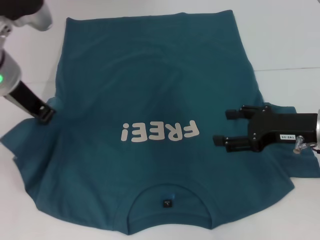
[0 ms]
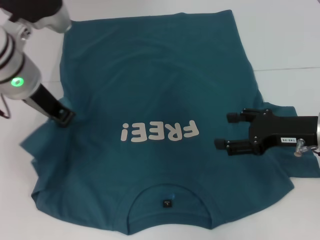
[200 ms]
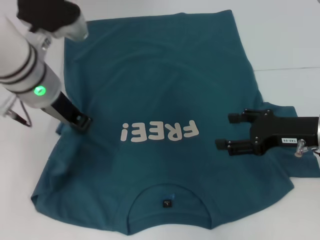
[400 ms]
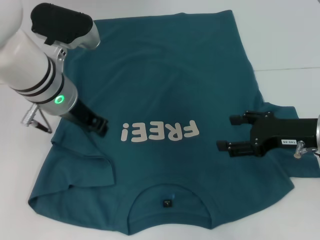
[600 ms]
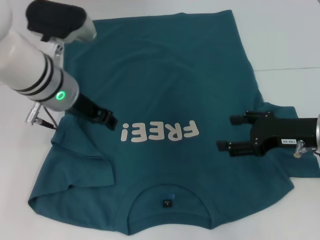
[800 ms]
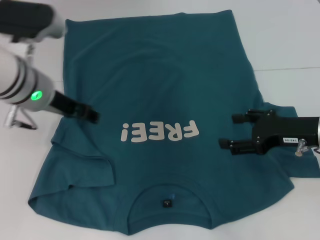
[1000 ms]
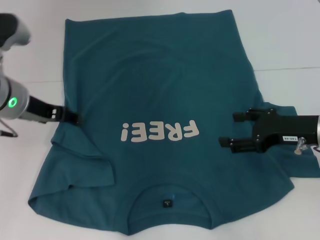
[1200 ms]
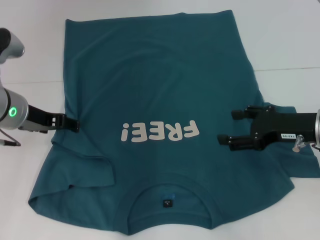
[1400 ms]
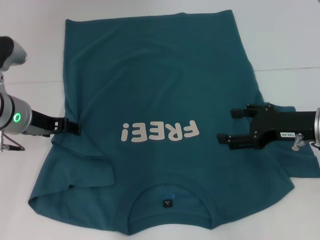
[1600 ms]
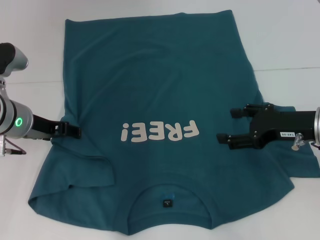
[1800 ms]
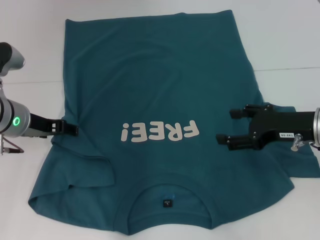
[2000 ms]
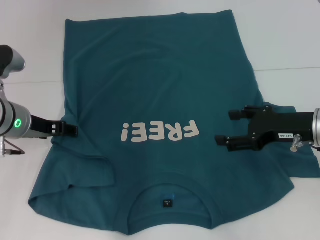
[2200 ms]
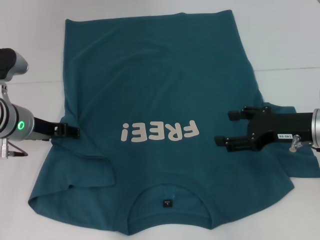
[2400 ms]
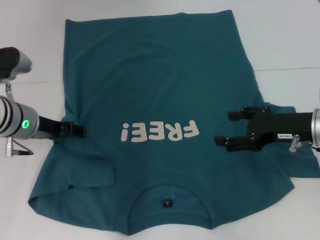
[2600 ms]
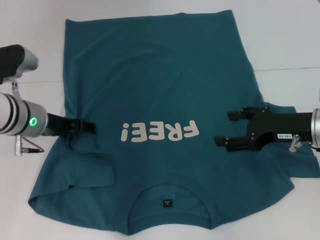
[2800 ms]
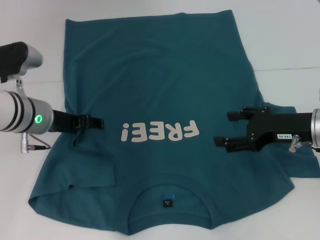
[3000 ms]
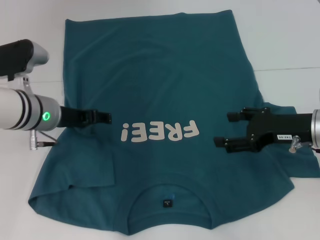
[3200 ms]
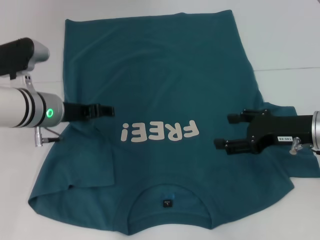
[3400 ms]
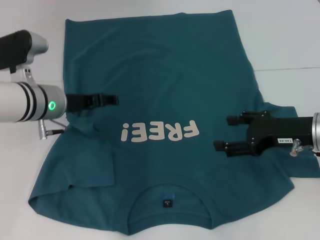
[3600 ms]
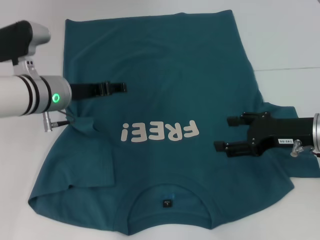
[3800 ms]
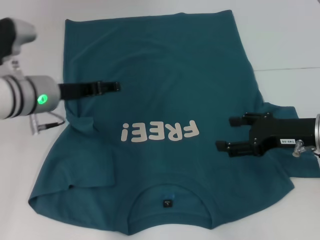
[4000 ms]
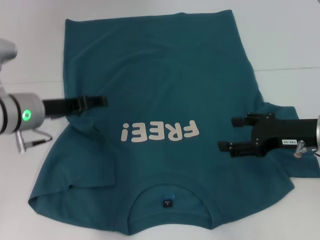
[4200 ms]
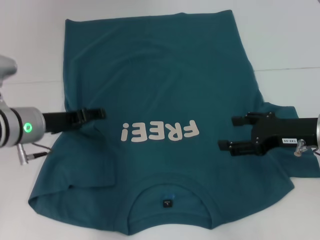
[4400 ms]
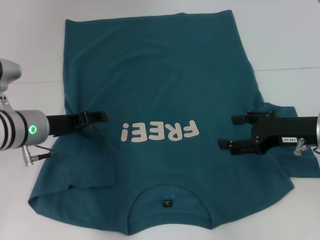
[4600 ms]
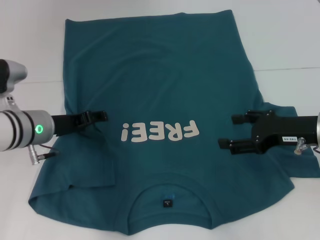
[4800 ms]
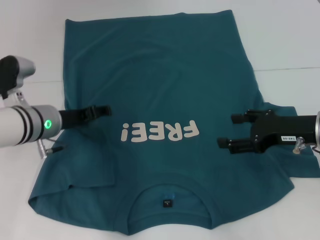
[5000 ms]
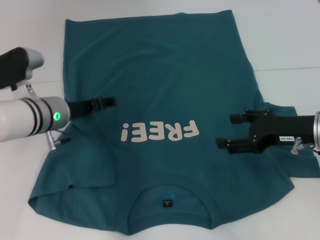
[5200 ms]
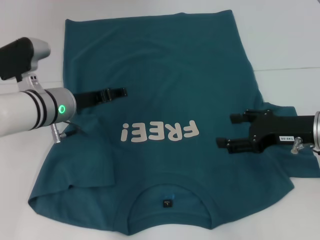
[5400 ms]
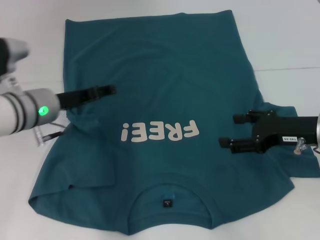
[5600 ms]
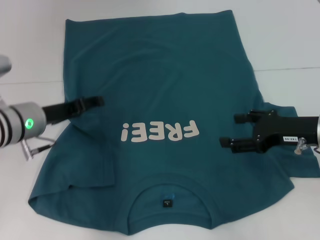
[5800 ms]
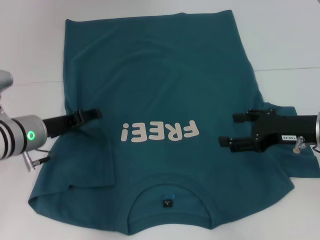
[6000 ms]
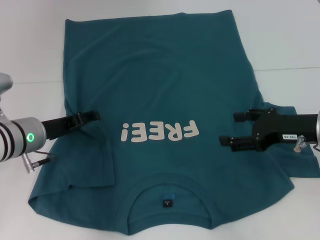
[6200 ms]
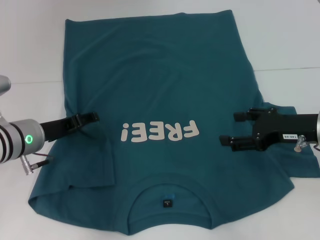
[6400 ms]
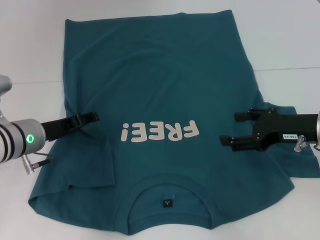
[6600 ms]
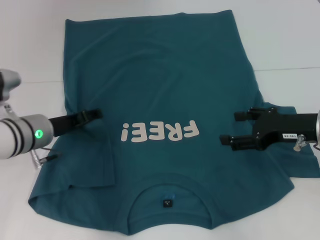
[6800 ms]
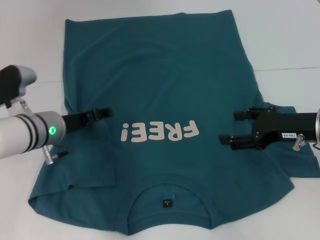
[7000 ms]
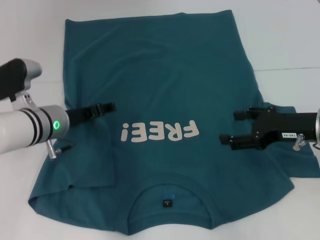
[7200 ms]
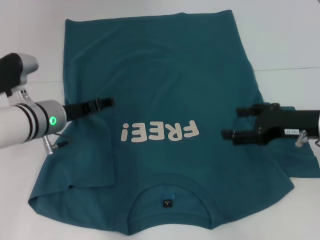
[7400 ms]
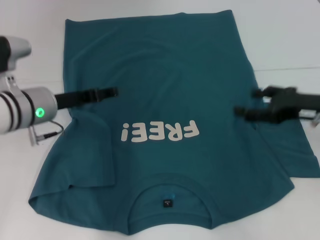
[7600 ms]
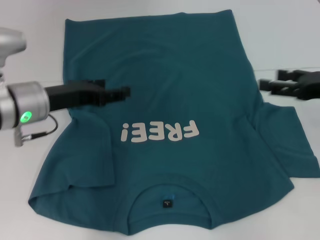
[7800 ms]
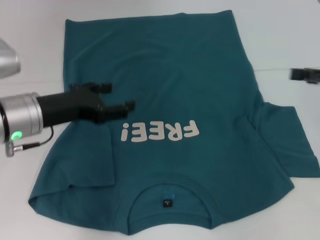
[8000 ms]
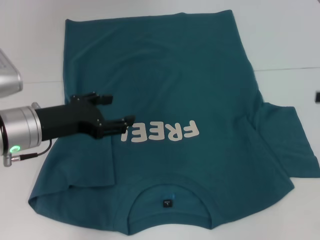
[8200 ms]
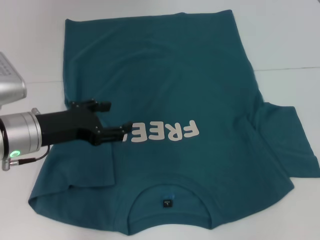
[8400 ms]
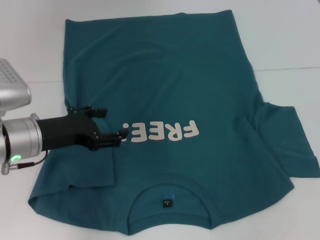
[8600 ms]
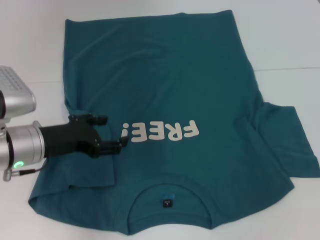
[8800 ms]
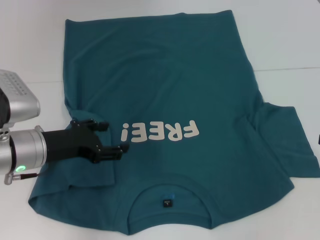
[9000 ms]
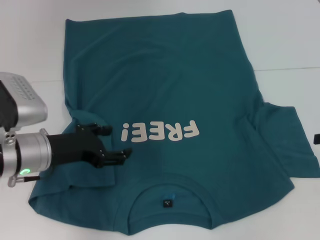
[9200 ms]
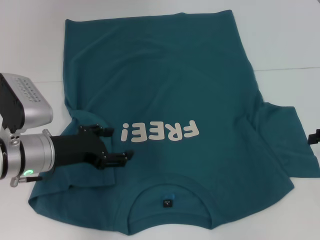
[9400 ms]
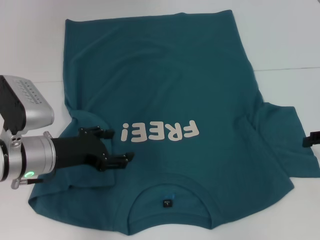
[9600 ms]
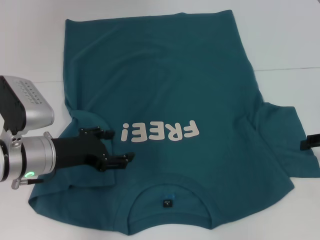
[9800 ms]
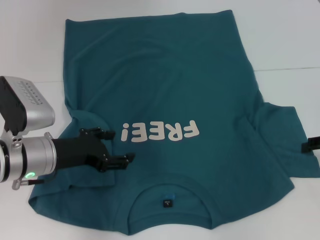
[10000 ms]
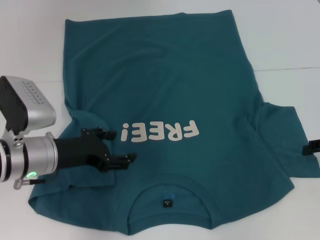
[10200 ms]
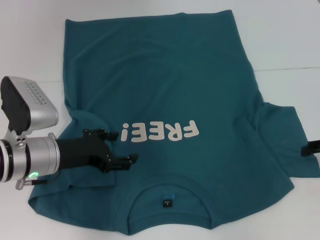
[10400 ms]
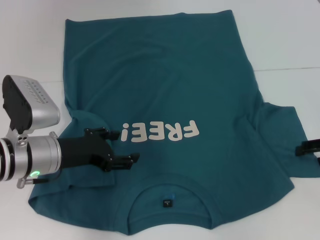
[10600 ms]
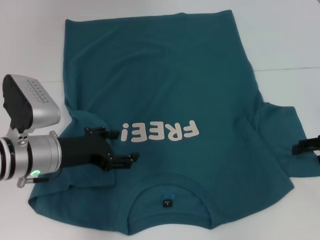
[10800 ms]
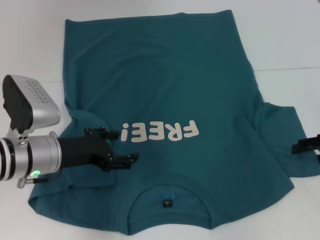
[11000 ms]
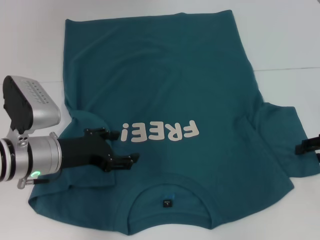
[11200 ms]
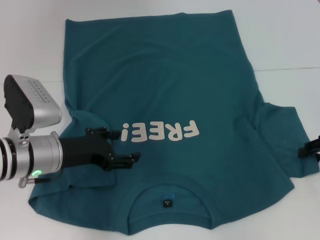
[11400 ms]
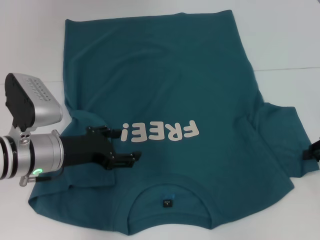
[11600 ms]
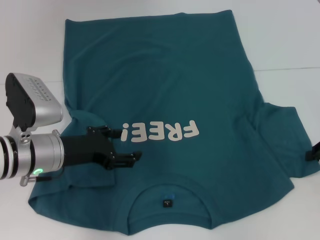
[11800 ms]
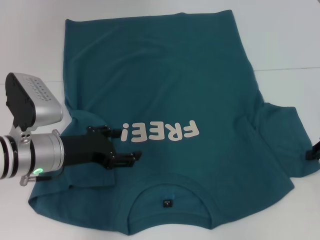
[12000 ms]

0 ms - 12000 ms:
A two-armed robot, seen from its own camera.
Step, 0 ms - 4000 ms: Fold the bottom left sleeve with your left hand.
0 ms - 1600 ms: The left gripper moves downward, approximately 10 cm, and opens up.
1600 ms - 3000 ms: There are only small adjustments of the grippers.
3000 ms - 4400 ms: The grippers make only small movements.
4400 ms - 7600 ms: The grippers make only small movements.
7600 ms - 9000 ms: The left gripper moves backward, about 5 cm. Meanwhile the right gripper travels to the right by approximately 10 cm.
9000 ms - 10400 ms: The grippers stay close to where they were, moving slightly.
10400 ms - 12000 ms: The right gripper closes.

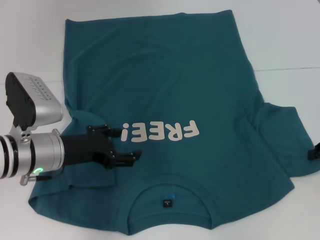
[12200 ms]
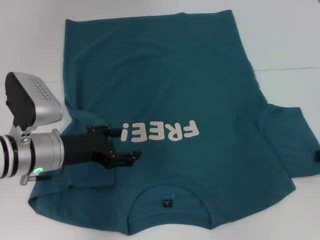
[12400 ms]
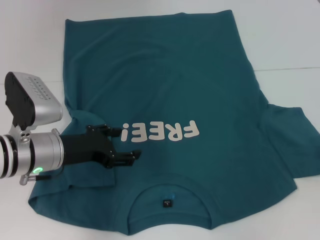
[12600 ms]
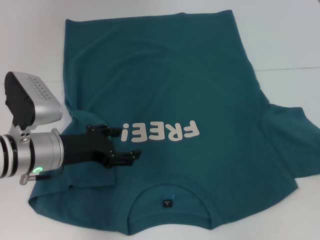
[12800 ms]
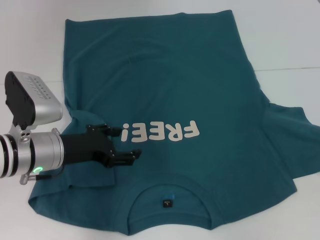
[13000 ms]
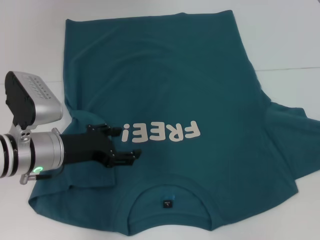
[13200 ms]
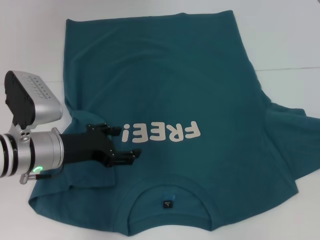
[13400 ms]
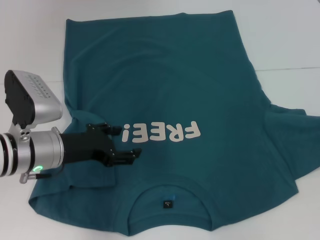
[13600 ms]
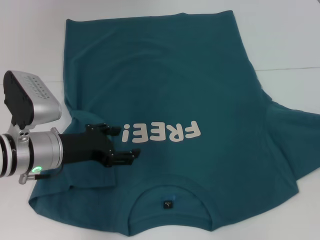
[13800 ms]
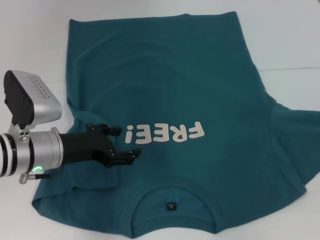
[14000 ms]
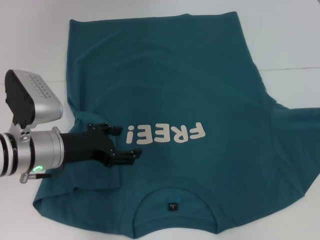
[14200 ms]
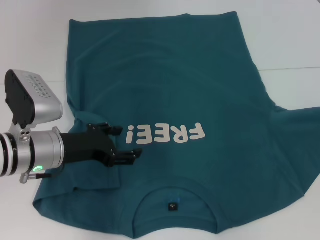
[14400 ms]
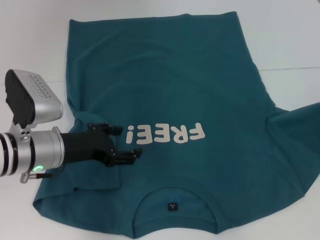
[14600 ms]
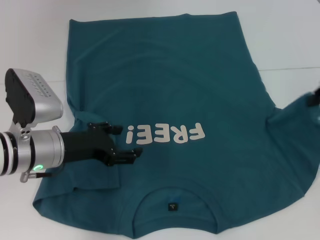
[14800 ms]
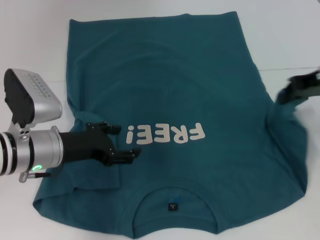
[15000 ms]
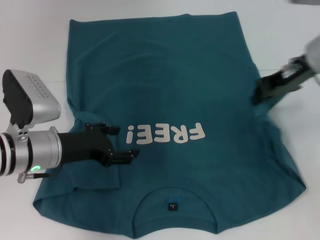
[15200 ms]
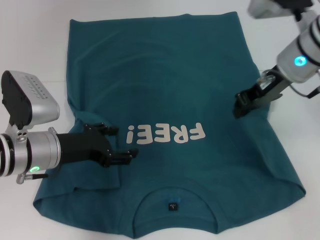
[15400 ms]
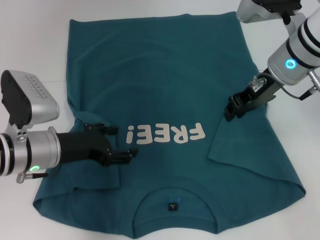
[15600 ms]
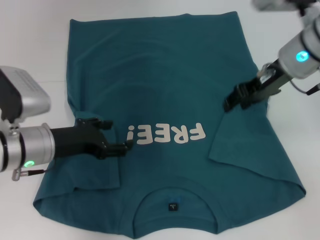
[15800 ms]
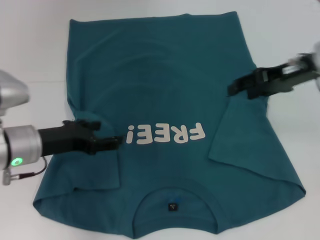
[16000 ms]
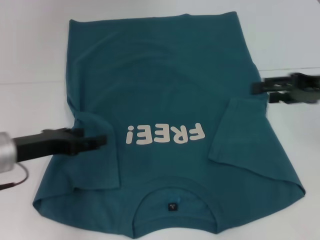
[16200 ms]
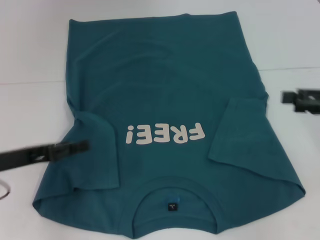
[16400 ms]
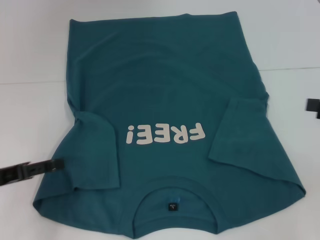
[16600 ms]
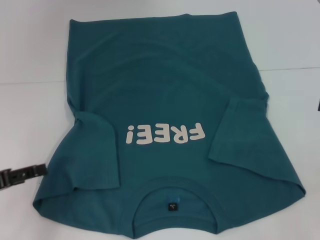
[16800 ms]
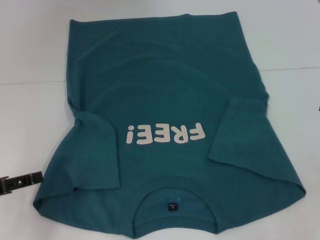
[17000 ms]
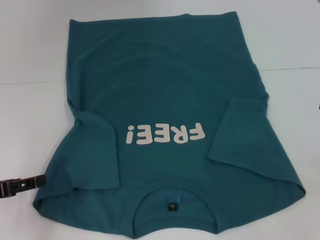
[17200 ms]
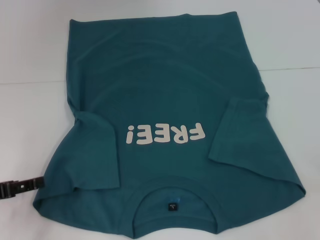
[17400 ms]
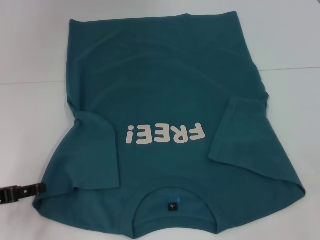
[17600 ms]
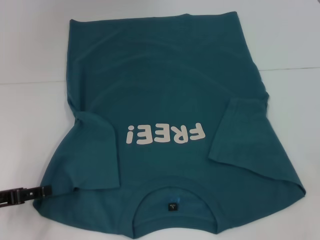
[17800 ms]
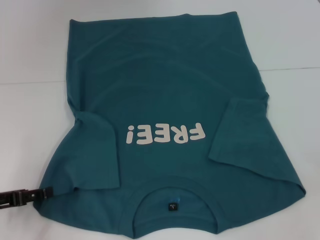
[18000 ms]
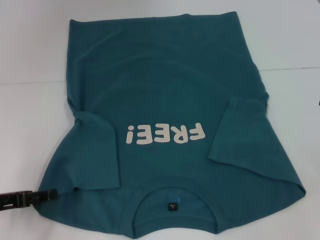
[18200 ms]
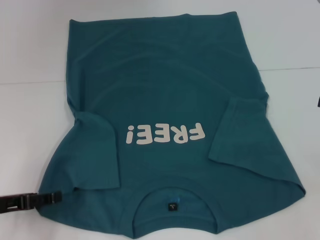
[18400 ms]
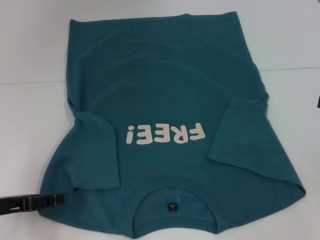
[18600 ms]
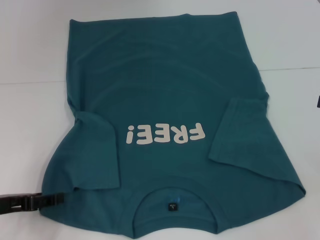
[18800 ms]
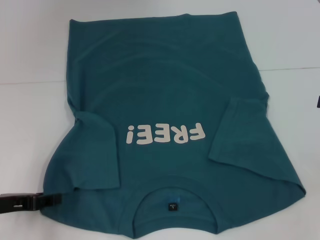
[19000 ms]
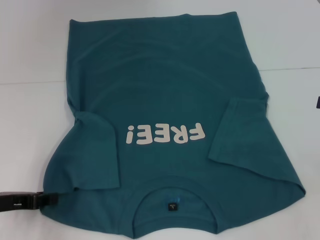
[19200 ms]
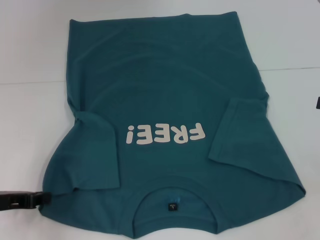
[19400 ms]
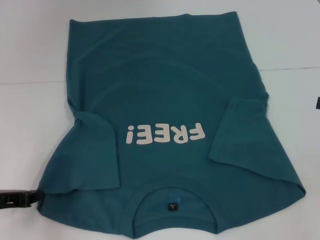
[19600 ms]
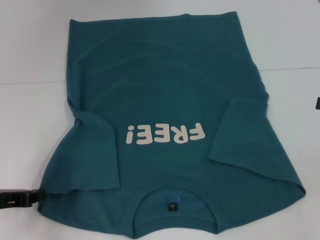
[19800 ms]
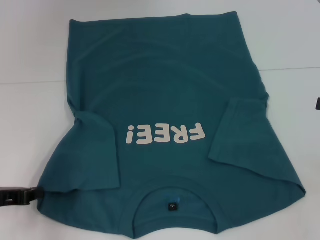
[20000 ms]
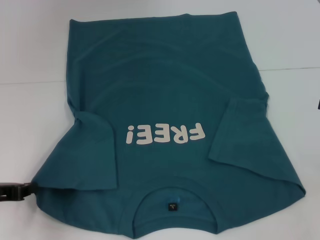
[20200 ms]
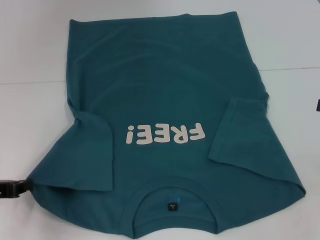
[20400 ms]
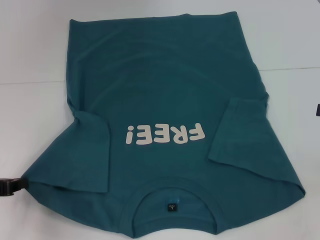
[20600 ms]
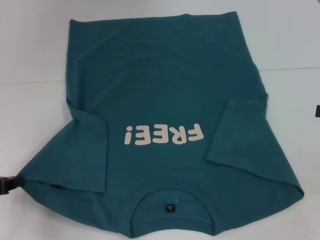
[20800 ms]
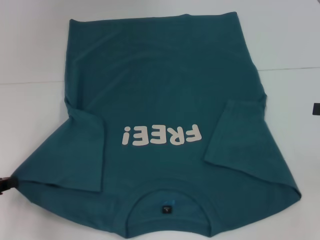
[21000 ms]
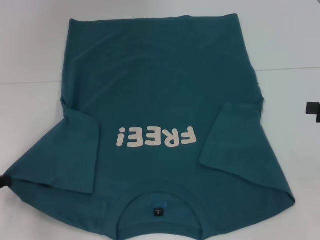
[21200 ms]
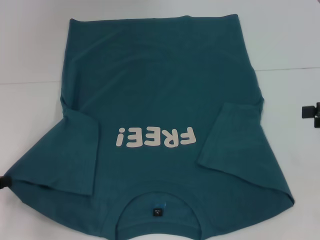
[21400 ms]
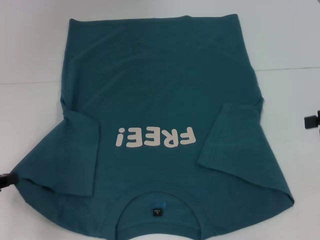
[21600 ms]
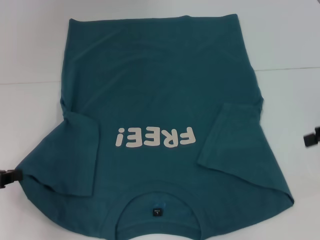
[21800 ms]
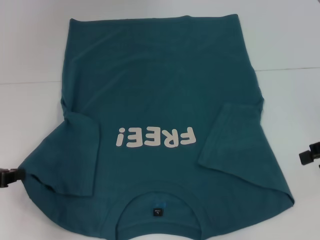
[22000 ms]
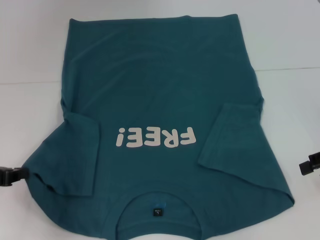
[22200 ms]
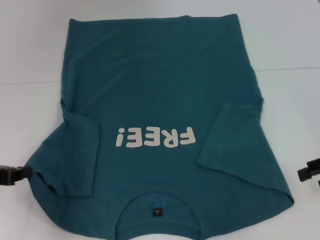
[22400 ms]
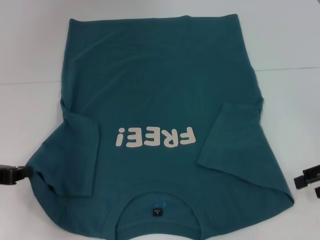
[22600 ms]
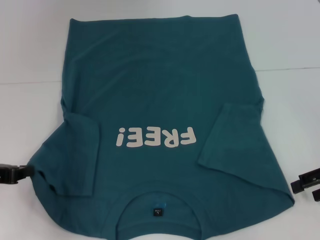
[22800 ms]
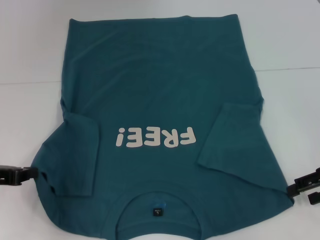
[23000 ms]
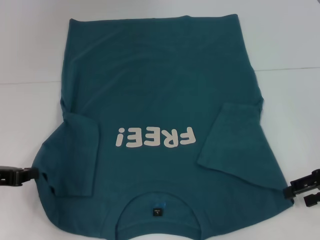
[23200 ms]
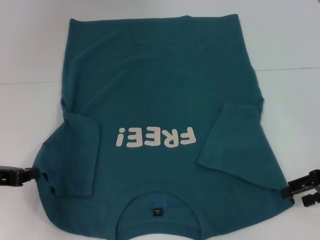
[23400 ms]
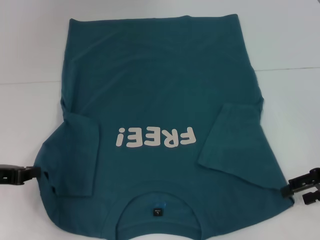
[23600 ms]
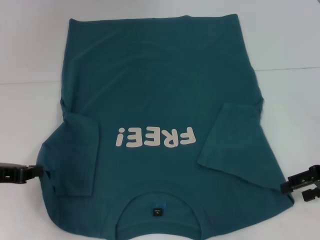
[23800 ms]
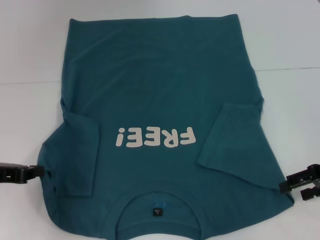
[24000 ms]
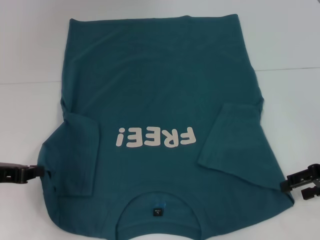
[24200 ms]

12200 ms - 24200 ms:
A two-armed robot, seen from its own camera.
Step, 12200 ms - 16800 ms: Fold the bottom right sleeve to the right.
Step, 17000 ms - 20200 ms: Grab the bottom left corner with your left hand.
12200 ms - 13800 ms: The right gripper travels upward by some 5 cm.
13800 ms - 15200 ms: The right gripper heads to the left and forward, covering roughly 20 cm.
15200 ms - 16600 ms: The right gripper goes approximately 20 cm to the right and backward, and opens its fingers. Meanwhile the left gripper goes approximately 15 cm to the left and backward.
16600 ms - 18200 ms: There are only small adjustments of the grippers.
19800 ms - 21200 ms: The left gripper moves approximately 5 cm.
22600 ms - 24200 ms: The grippers make only small movements.
